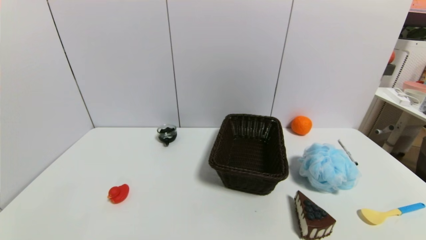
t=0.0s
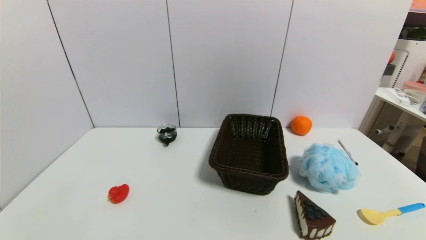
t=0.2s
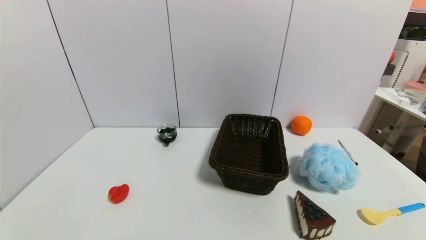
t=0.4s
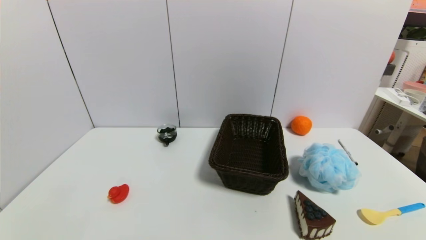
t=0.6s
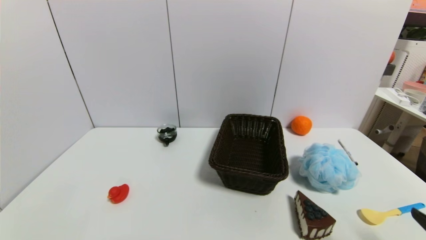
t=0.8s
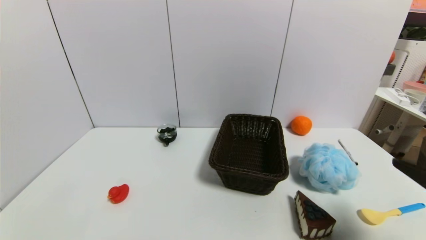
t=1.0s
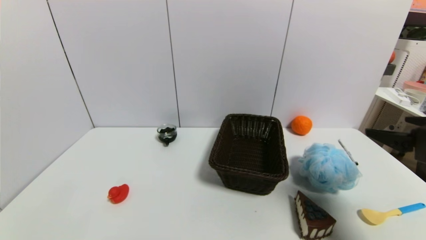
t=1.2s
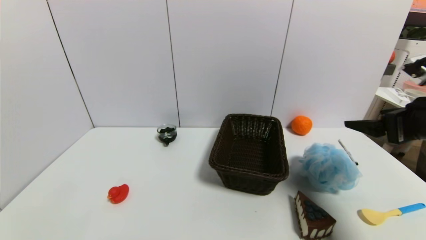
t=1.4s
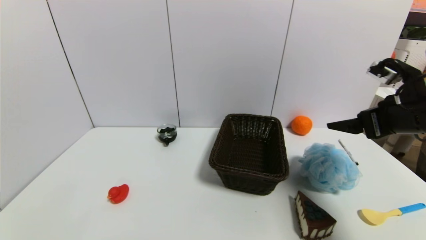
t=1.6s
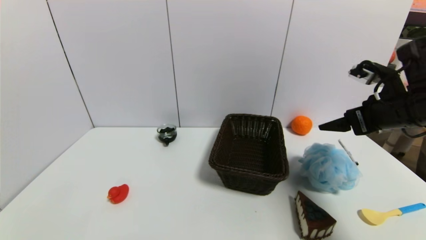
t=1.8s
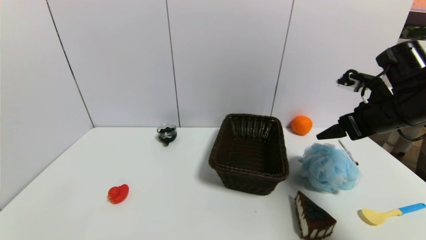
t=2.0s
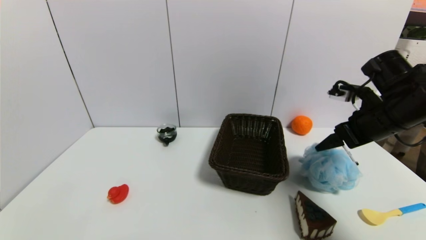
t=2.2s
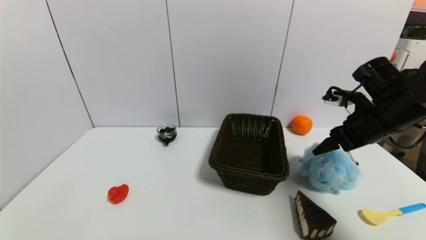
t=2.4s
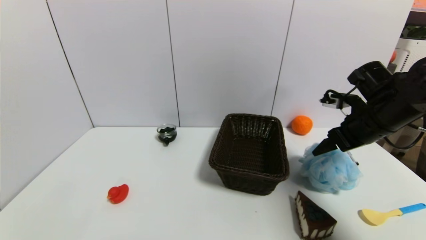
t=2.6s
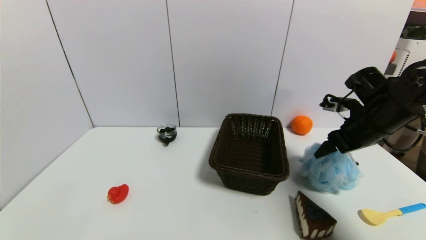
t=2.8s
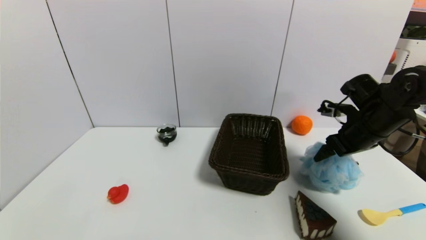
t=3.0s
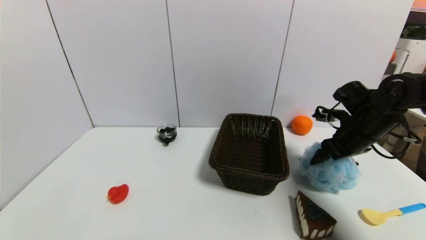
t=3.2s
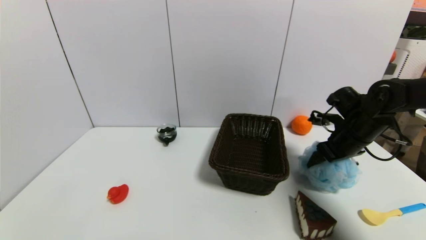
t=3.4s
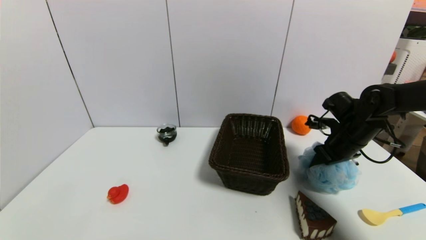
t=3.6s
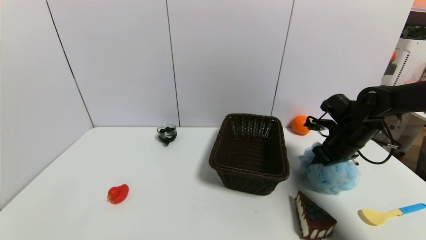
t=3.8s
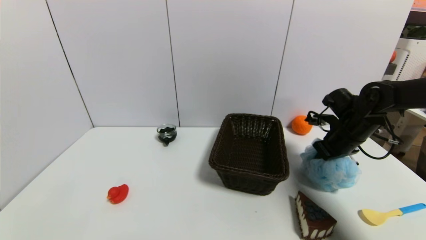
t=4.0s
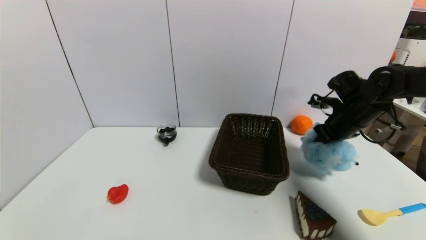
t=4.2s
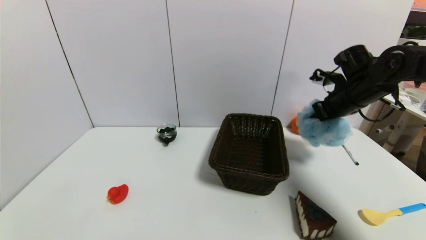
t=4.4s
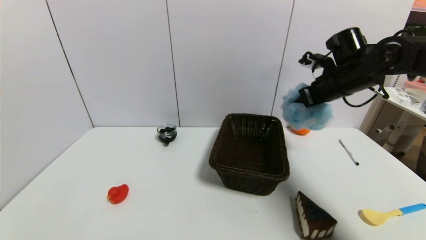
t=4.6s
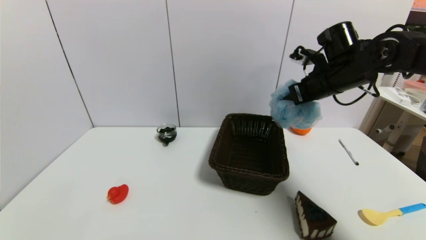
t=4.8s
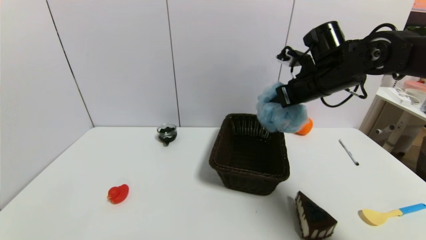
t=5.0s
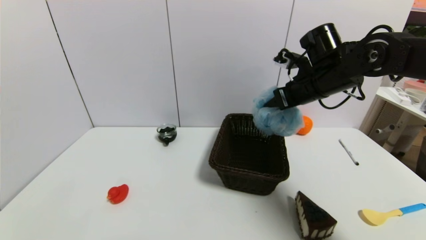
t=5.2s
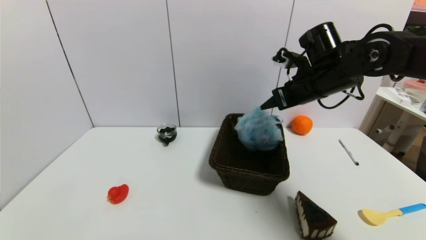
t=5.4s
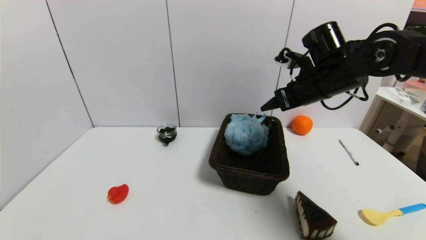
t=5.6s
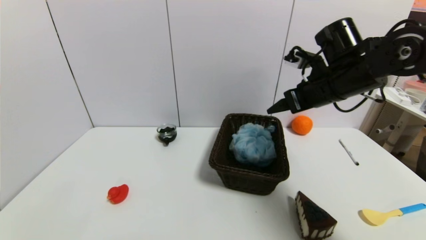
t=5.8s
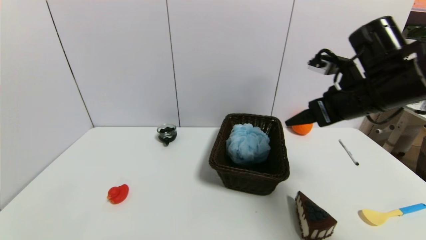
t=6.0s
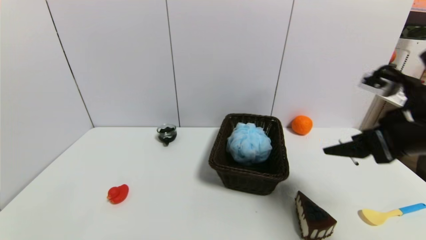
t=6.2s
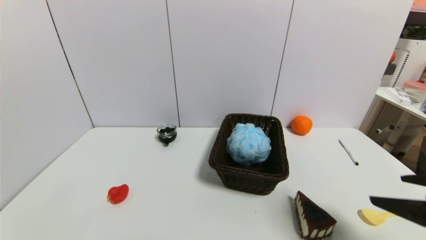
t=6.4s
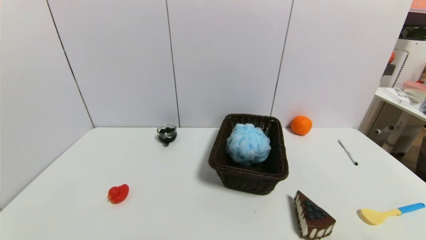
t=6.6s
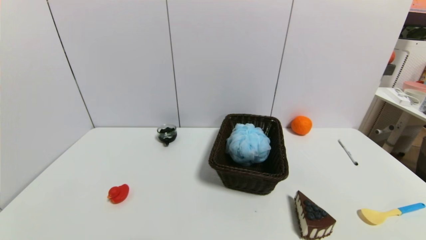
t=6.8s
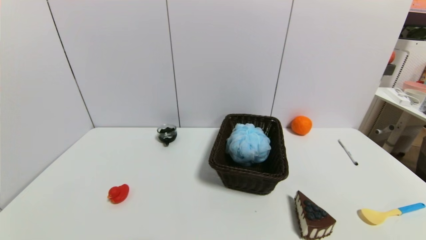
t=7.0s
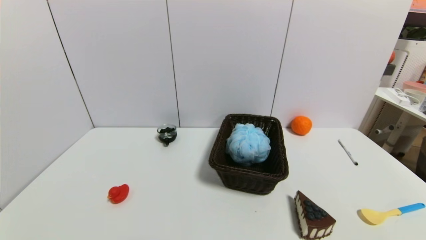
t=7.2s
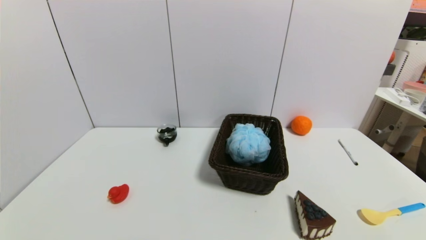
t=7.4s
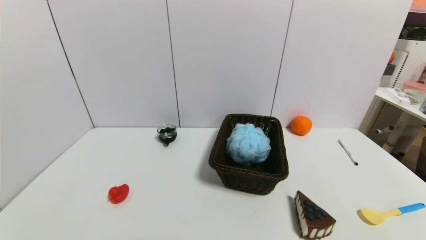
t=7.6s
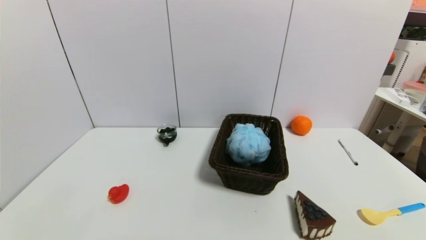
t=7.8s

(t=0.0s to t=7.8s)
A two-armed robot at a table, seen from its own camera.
Task of the whole recording: use a gripper to pick the target object and place on the brown basket.
Step, t=0.0s - t=3.8s: Grasp the shower sphere with the right gripper.
Step, t=4.0s - t=5.6s: Place the shower sphere into the basket with the right gripper.
t=0.0s - t=1.6s: The right gripper heads forward and upward, covering about 30 cm.
t=1.6s - t=3.2s: The right gripper goes about 15 cm forward and downward.
t=3.2s - t=4.6s: The right gripper heads upward and forward, covering approximately 10 cm, and closes its fingers.
t=4.6s - t=6.2s: The right gripper travels backward by some 20 cm, and opens its fingers.
t=6.2s - t=7.8s: The right gripper travels backward and downward by some 30 cm.
